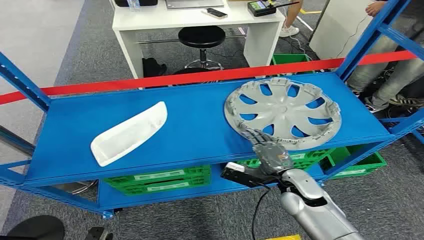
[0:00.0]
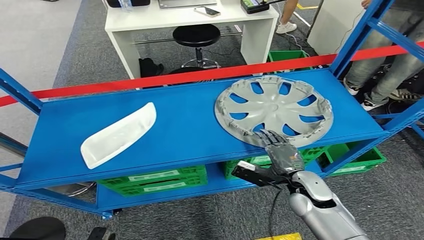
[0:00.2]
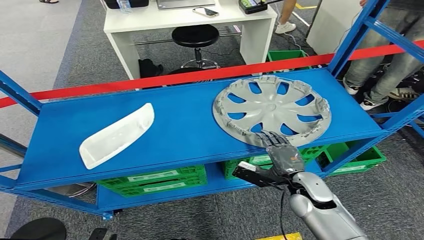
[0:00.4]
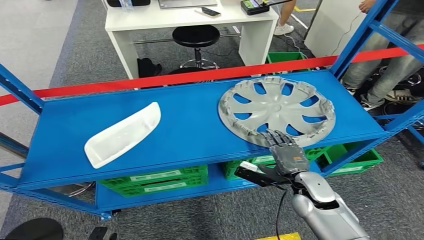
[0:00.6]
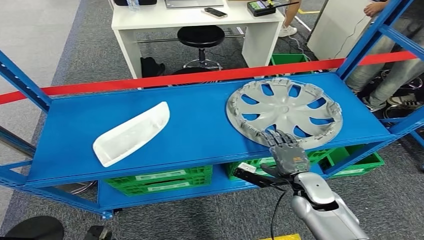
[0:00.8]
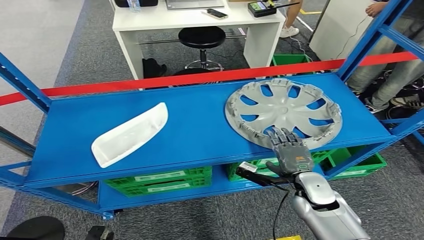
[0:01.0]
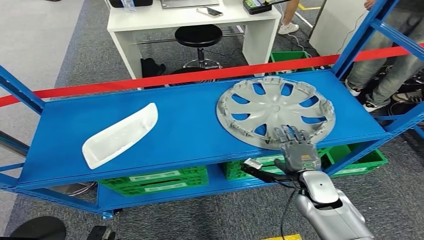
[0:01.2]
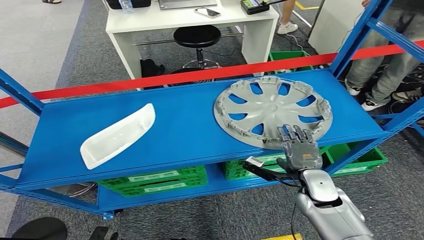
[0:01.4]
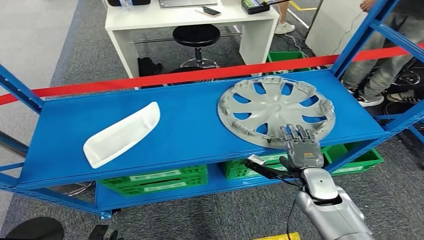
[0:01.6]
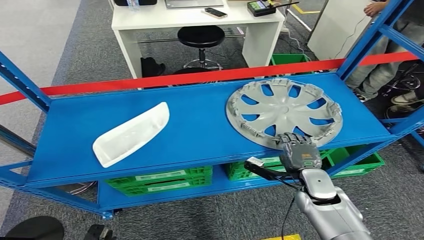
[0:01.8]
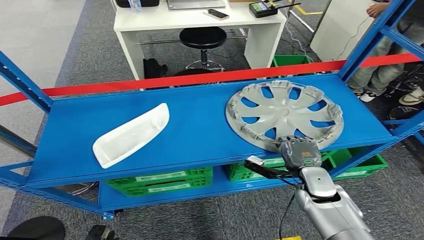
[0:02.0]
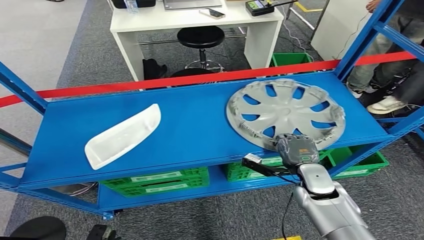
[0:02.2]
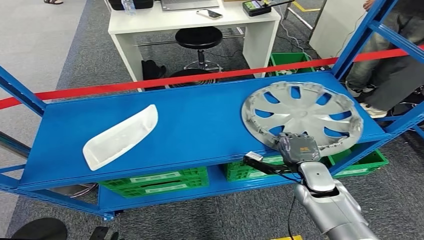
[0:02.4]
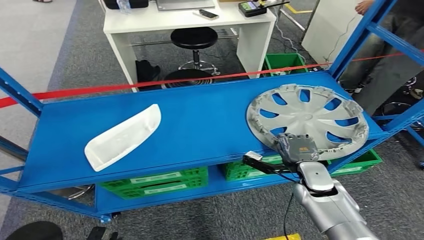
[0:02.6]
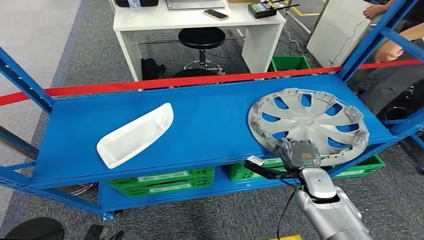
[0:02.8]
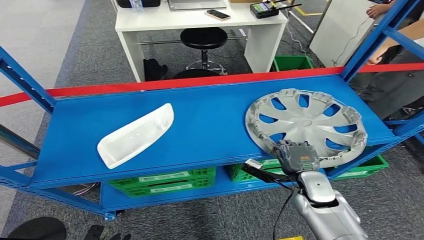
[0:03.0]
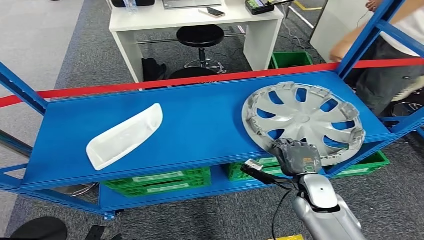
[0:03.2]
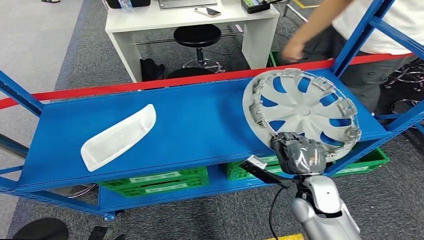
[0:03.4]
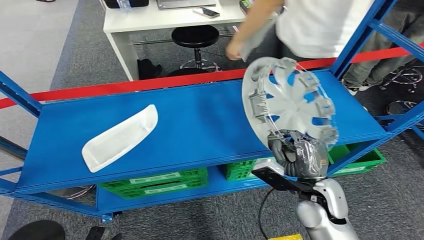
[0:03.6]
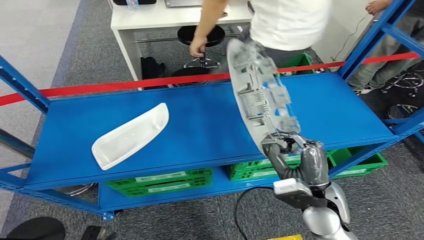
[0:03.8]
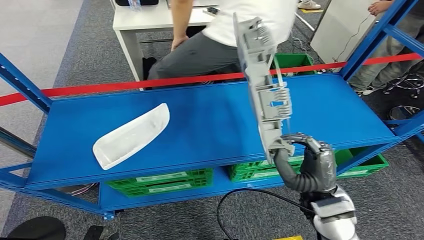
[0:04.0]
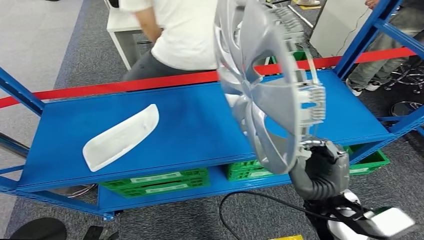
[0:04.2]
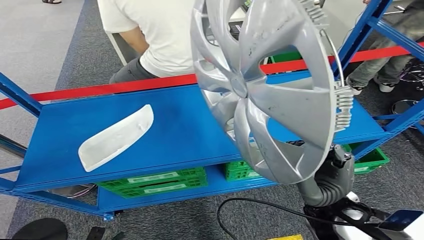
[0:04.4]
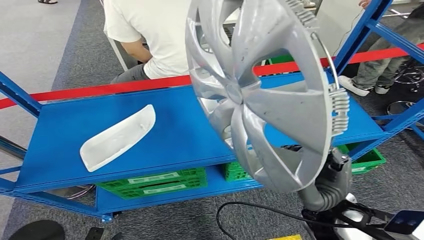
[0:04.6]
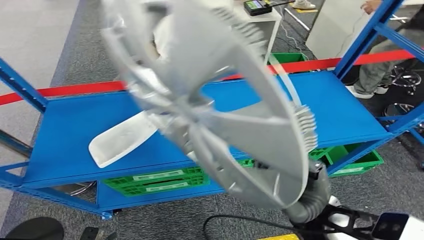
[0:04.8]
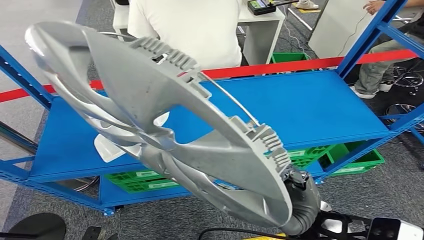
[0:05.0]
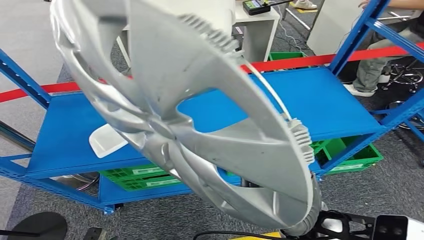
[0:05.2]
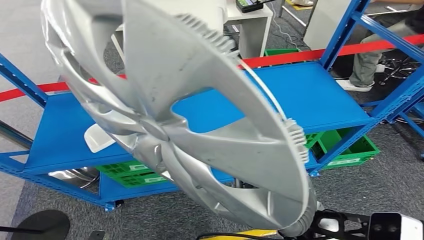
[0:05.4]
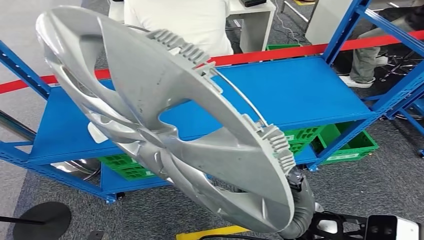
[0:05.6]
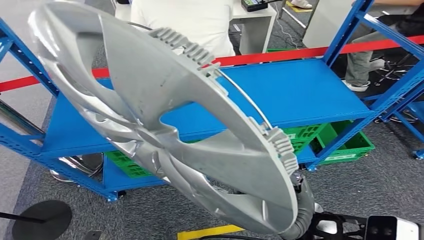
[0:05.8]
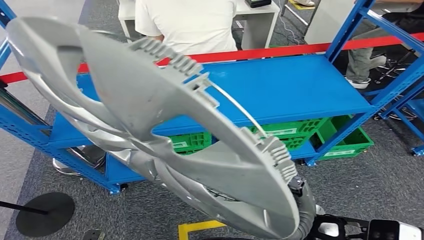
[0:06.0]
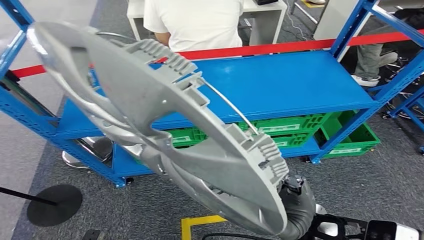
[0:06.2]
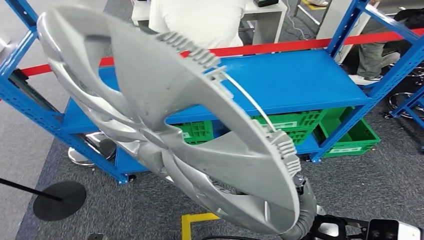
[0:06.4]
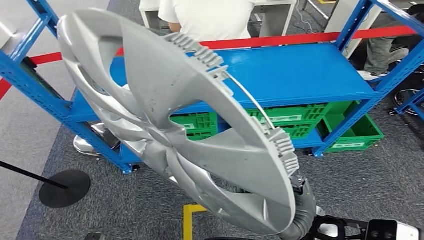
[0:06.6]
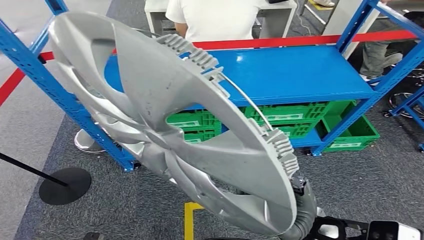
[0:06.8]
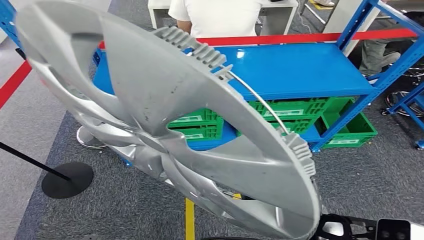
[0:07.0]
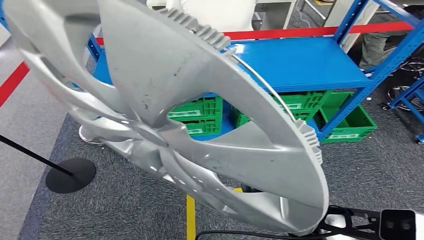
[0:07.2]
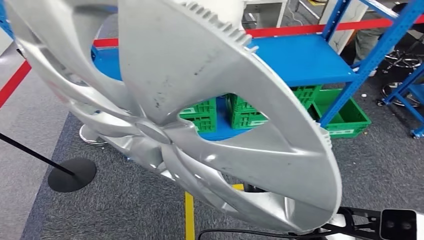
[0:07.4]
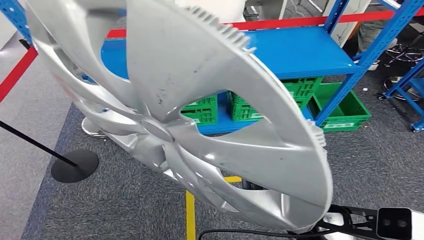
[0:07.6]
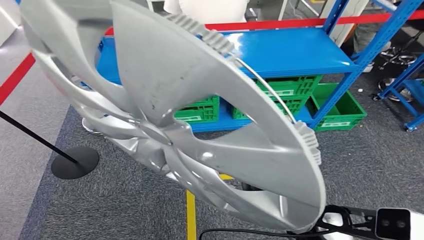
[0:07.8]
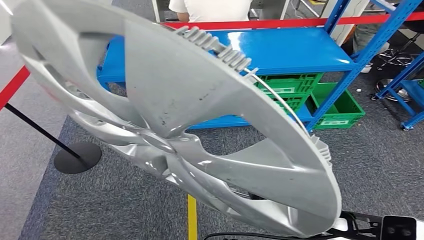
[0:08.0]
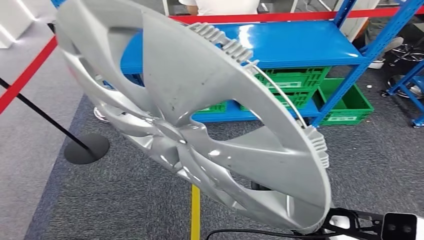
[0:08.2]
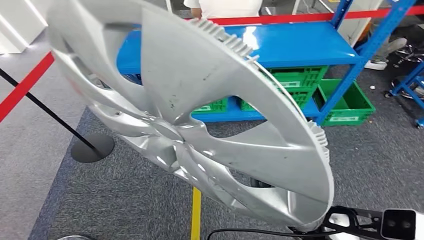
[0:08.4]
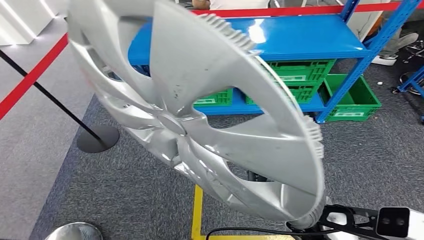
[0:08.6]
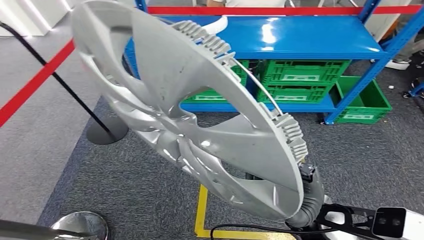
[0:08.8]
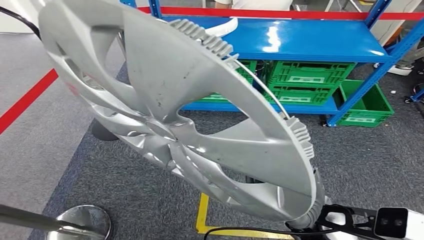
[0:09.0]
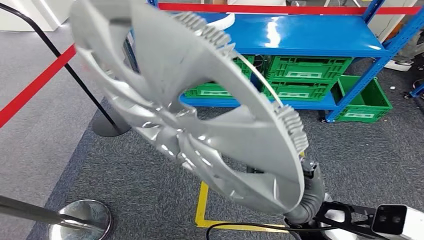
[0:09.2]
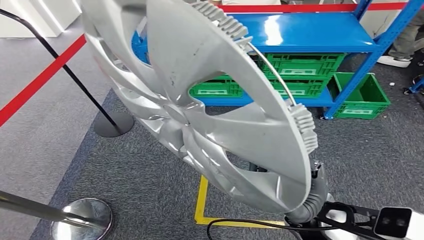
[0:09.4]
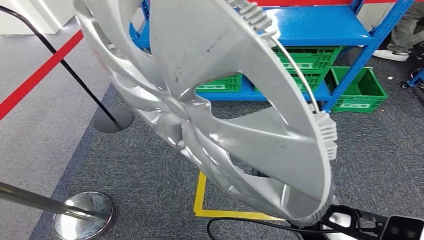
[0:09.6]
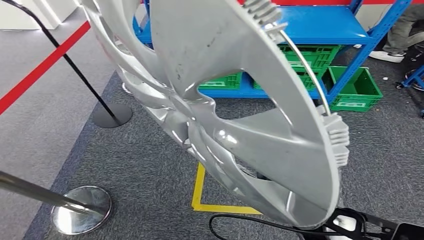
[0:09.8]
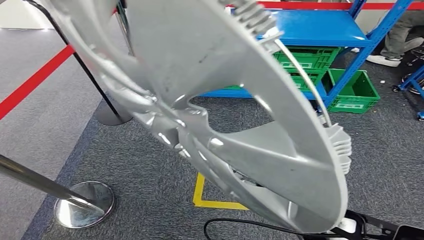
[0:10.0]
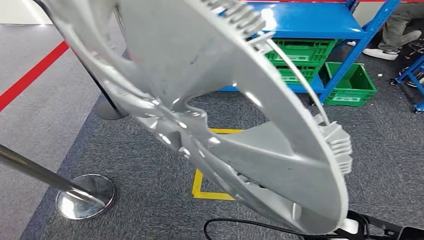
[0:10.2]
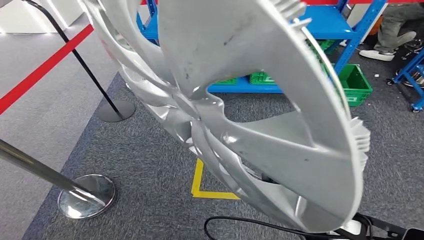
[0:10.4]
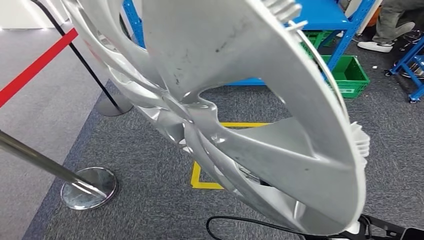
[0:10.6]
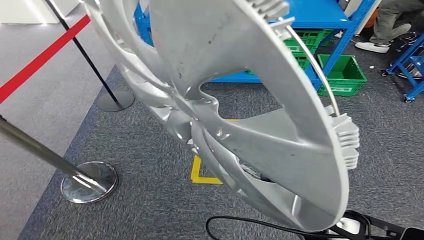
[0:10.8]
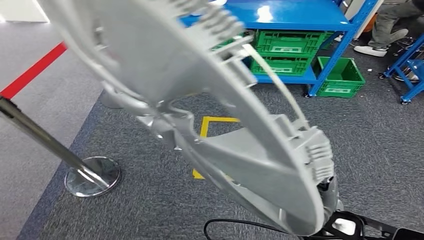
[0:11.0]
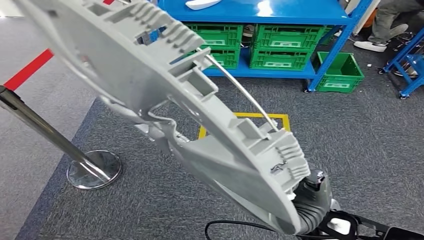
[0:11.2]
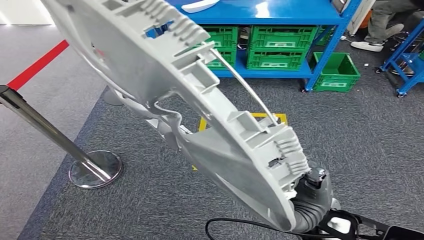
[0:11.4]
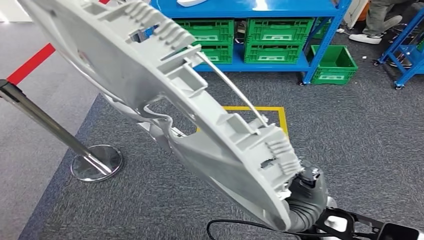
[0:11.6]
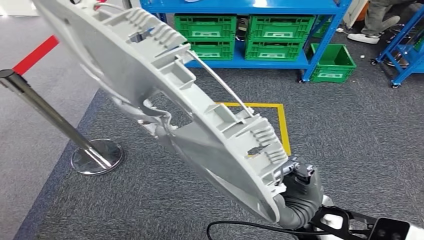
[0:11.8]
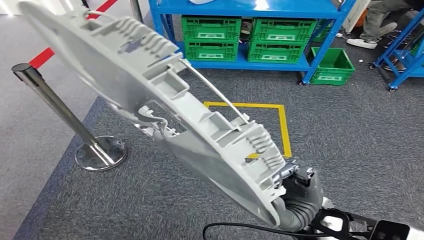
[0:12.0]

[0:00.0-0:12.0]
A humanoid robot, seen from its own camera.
Step, 0:00.0 to 0:04.8: Pick up the small parts from the shelf.

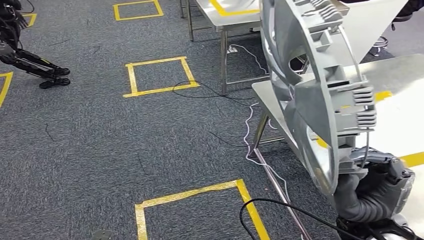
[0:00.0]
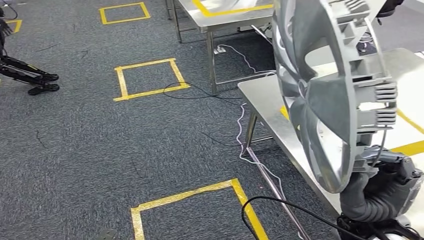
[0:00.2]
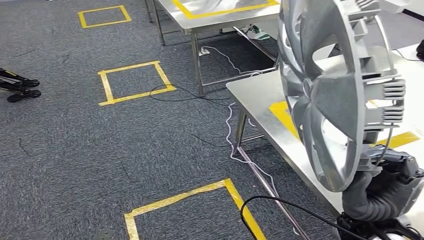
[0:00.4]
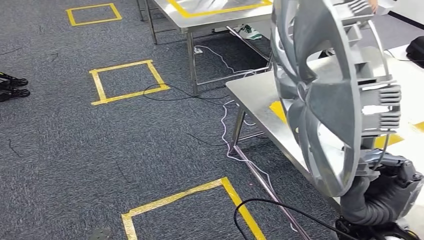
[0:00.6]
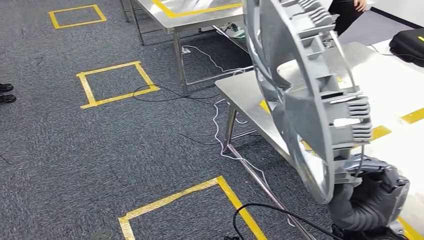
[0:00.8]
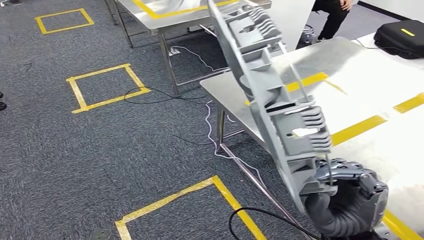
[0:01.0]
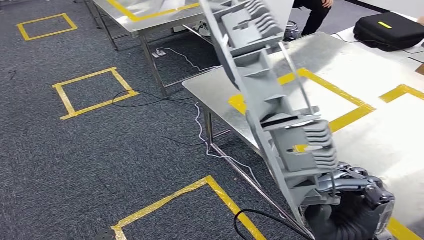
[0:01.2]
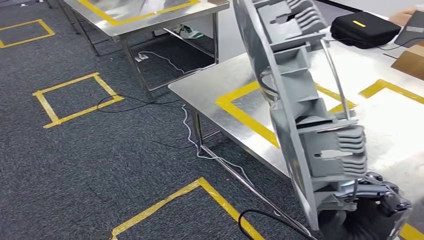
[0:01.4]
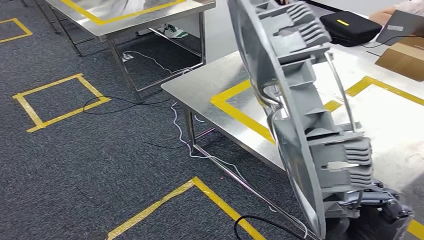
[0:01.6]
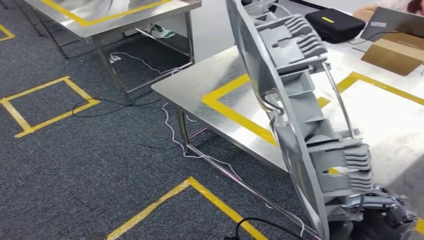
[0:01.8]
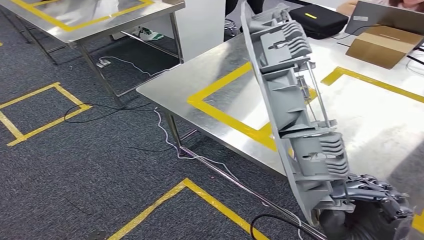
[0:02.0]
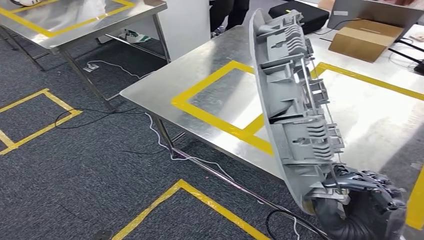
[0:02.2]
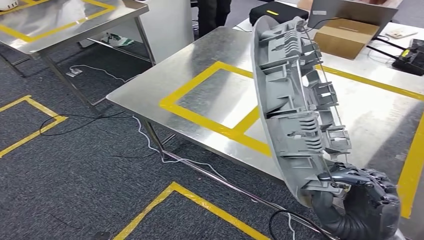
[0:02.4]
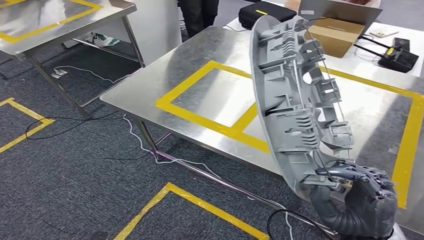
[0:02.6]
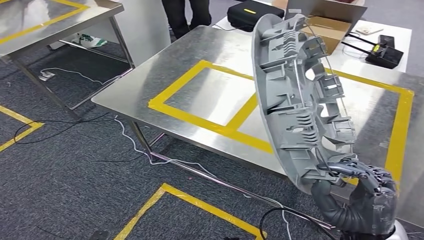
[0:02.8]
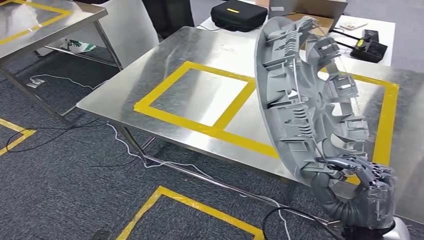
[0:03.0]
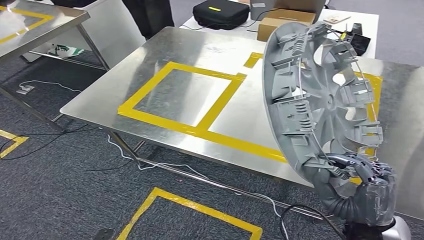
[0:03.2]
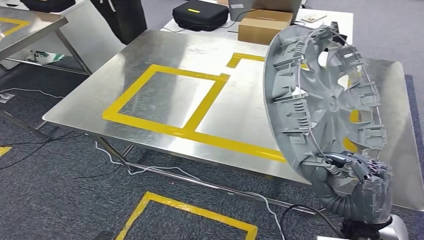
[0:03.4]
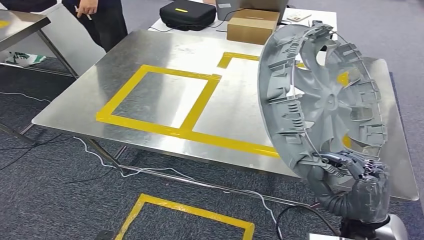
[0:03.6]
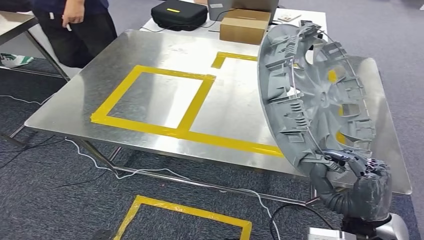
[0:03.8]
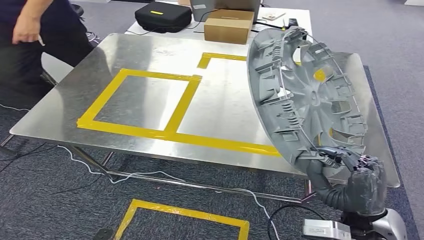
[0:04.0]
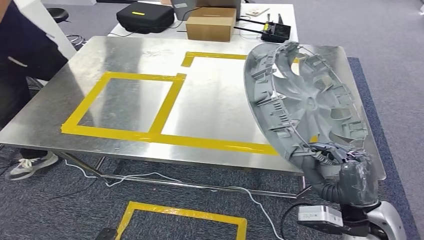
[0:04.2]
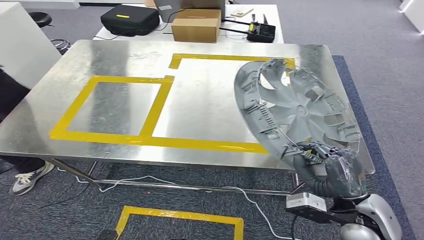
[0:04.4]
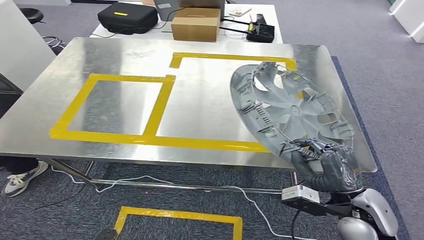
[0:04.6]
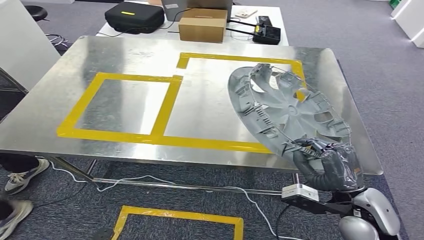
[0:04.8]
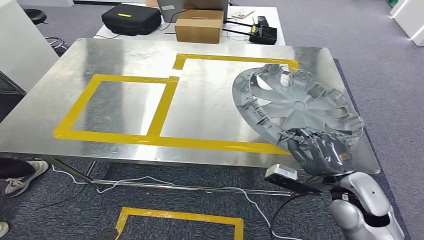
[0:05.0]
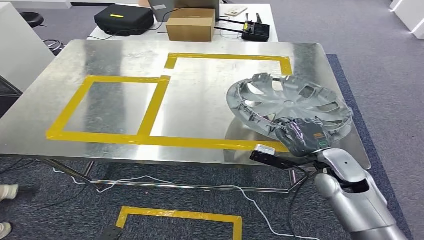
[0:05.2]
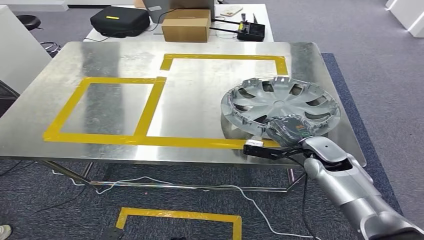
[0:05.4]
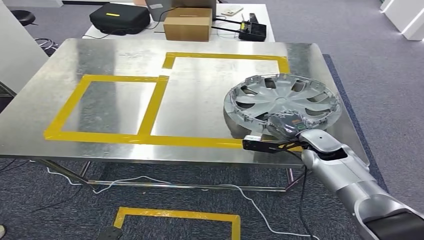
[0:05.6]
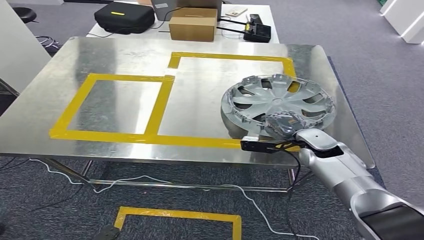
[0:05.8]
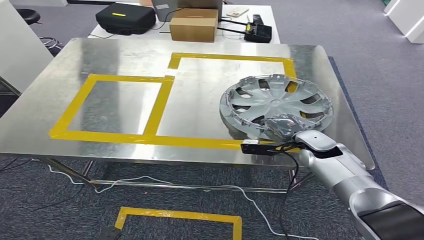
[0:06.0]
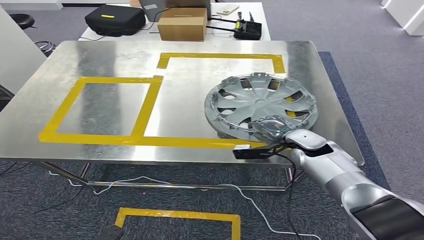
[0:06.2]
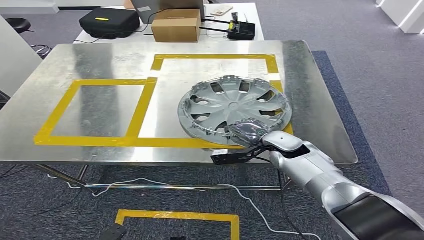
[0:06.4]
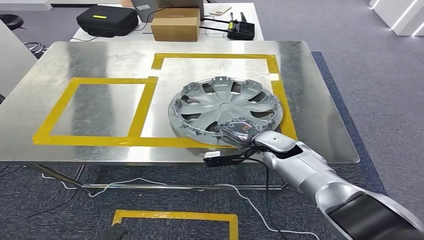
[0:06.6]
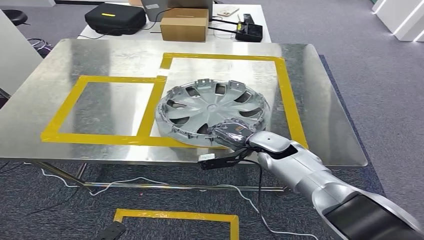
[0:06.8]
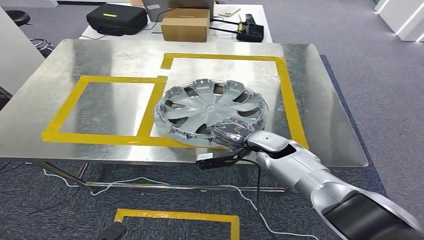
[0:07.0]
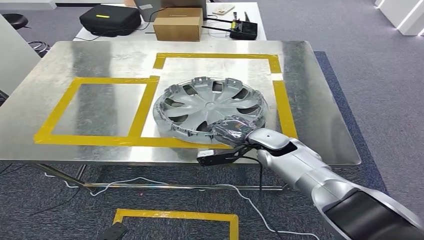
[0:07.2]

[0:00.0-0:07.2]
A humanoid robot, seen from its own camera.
Step, 0:00.0 to 0:04.2: Move the small parts to the workbench.
